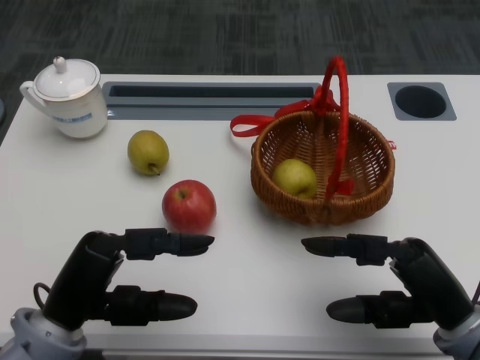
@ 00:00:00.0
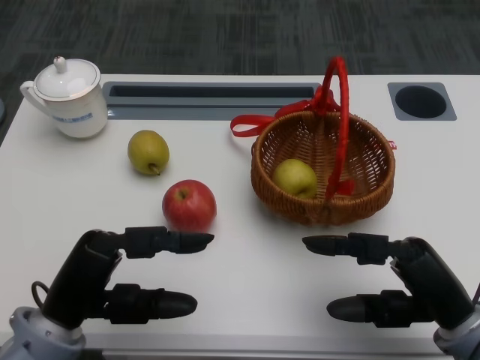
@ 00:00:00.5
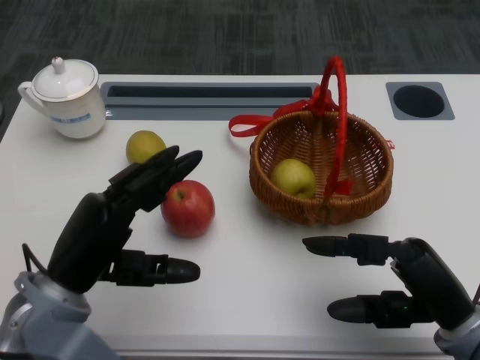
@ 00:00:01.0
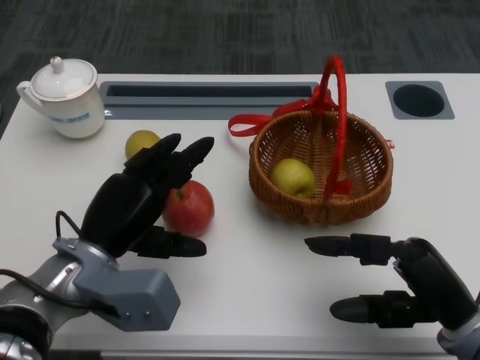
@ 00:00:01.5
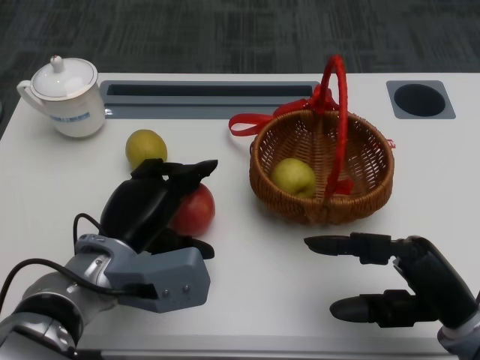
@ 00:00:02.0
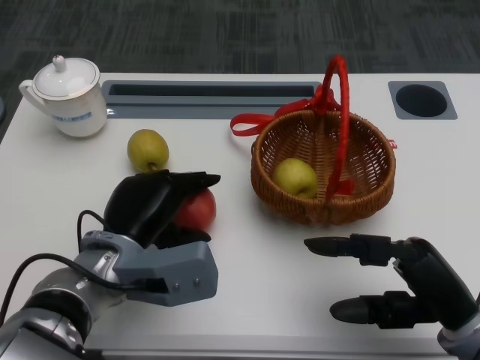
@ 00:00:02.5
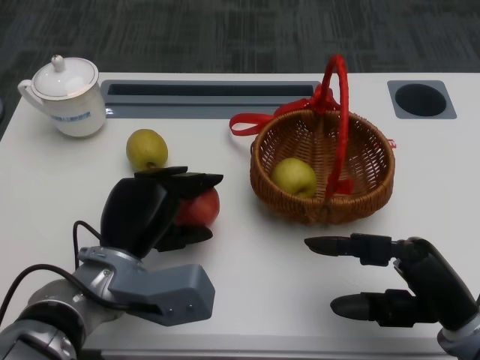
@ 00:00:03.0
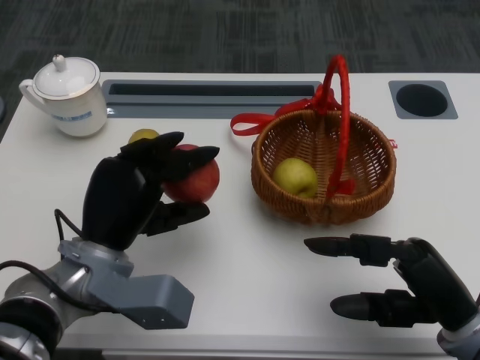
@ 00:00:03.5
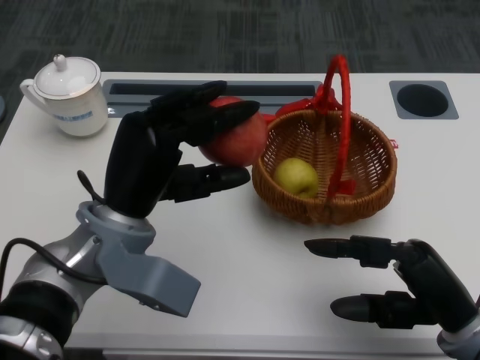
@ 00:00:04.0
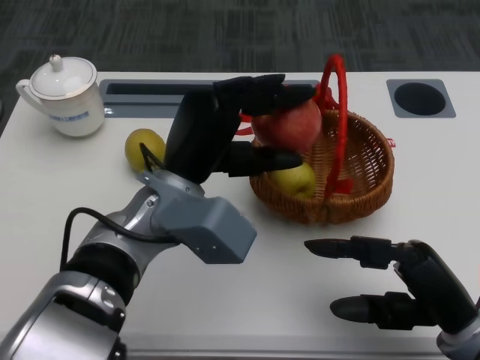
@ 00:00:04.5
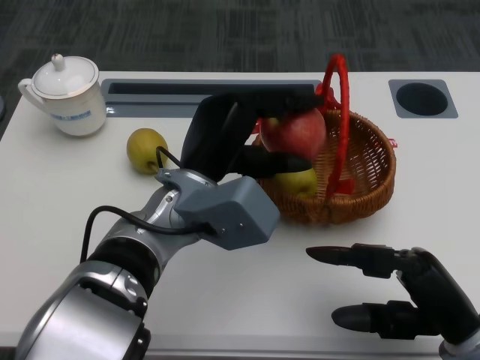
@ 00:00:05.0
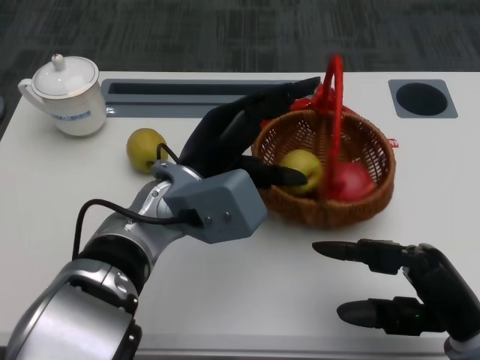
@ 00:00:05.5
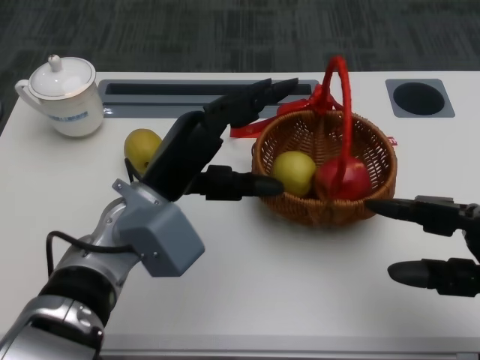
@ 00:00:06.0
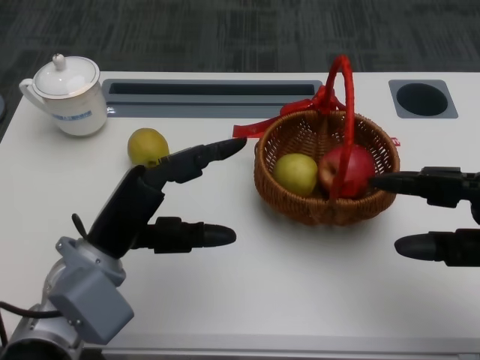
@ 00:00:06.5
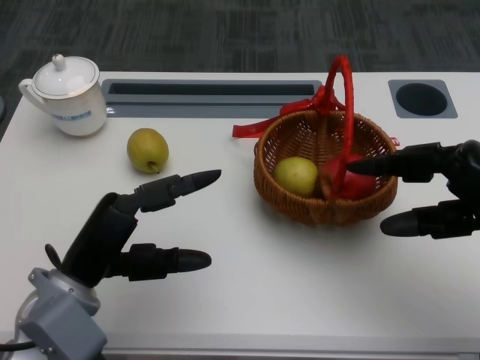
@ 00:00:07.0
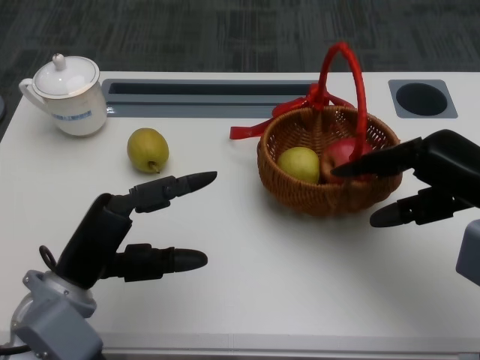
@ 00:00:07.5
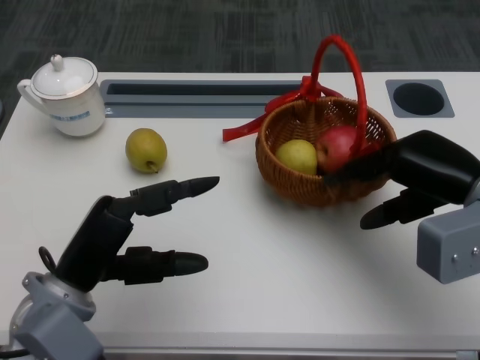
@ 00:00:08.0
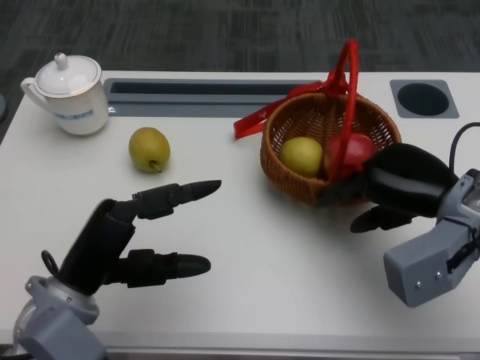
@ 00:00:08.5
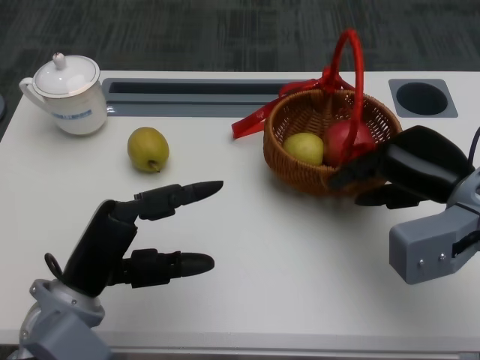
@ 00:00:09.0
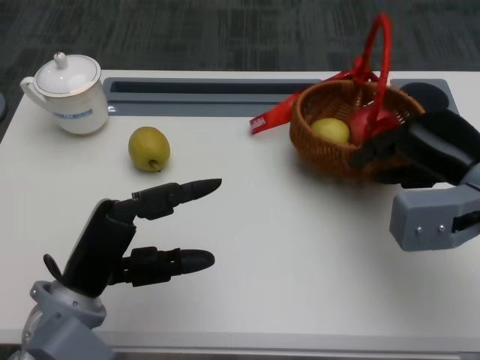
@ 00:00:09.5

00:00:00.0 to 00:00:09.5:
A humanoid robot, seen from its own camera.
Step, 00:00:00.5 to 00:00:02.0: Grasp the apple with the left gripper.
Step, 00:00:02.5 to 00:00:04.0: Place the apple into the basket with the left gripper.
Step, 00:00:05.0 to 00:00:07.0: Grasp the basket with the right gripper.
Step, 00:00:07.5 to 00:00:08.5: Move the basket to the front of the table with the right gripper.
00:00:02.0 to 00:00:04.0: The left hand heads upward, covering roughly 5 cm.
00:00:04.0 to 00:00:05.5: The left hand goes about 5 cm to the right.
00:00:05.5 to 00:00:07.5: The left hand is displaced to the left and backward by about 15 cm; the right hand goes approximately 15 cm forward and upward.

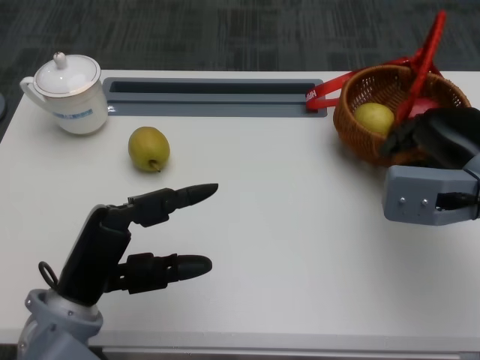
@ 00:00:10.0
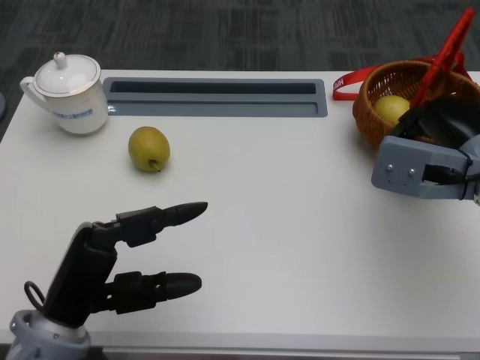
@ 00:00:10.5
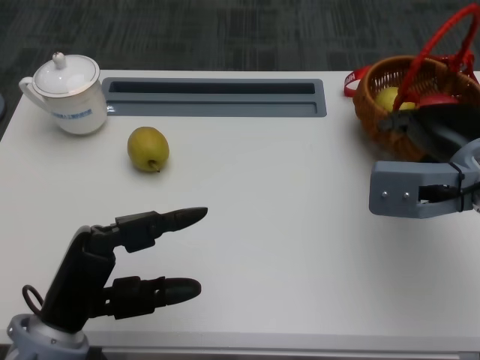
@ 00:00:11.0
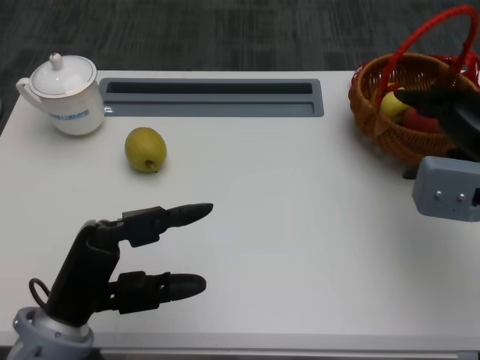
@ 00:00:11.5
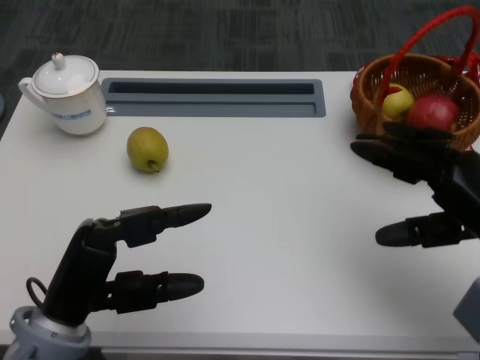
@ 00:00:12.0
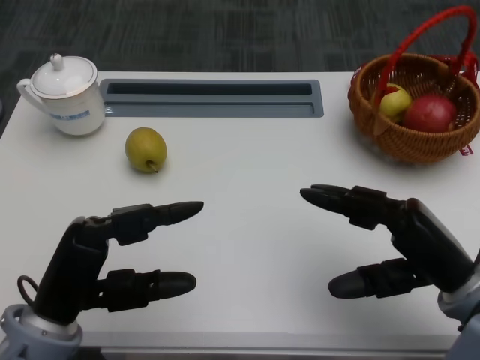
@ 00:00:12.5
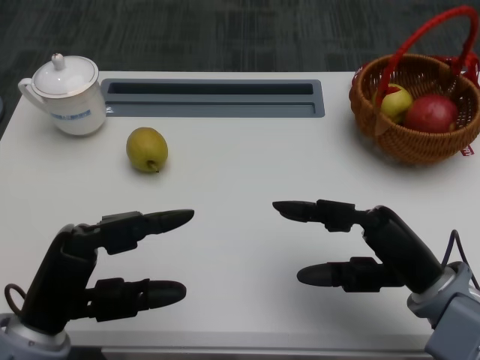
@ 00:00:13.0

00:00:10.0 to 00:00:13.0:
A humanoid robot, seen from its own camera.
00:00:10.0 to 00:00:11.5: The hands stay close to where they were, moving slightly.
00:00:11.5 to 00:00:13.0: The right hand moves backward, downward and to the left, about 15 cm.

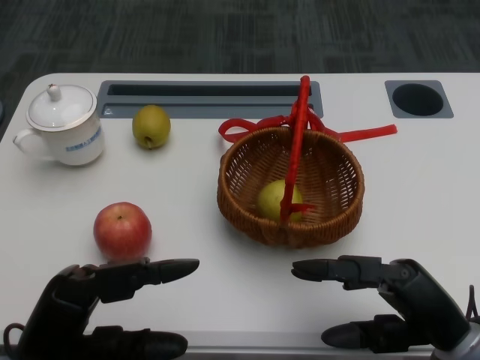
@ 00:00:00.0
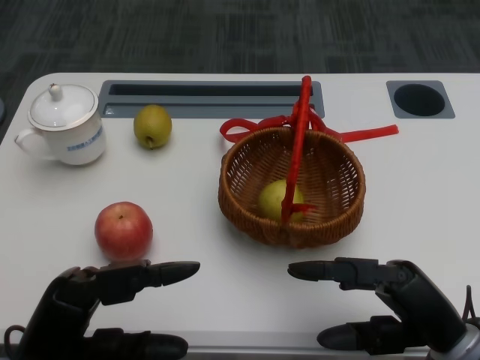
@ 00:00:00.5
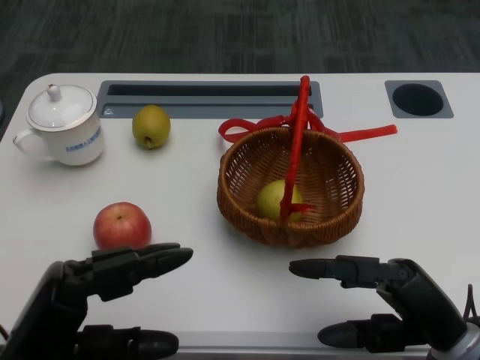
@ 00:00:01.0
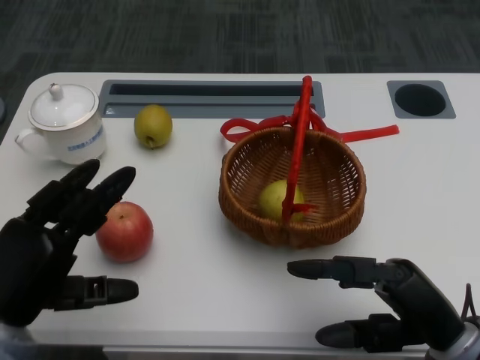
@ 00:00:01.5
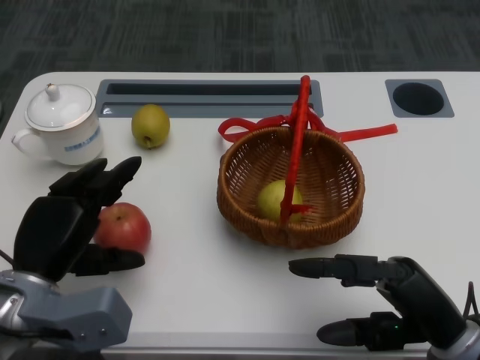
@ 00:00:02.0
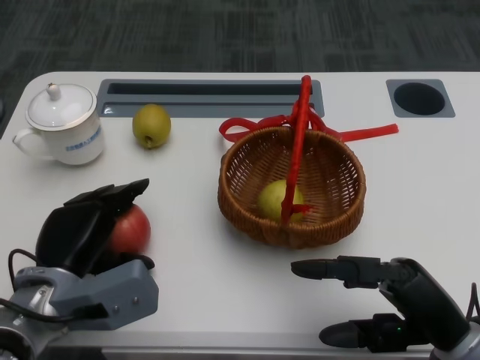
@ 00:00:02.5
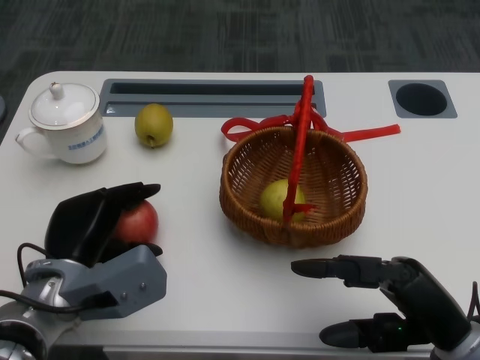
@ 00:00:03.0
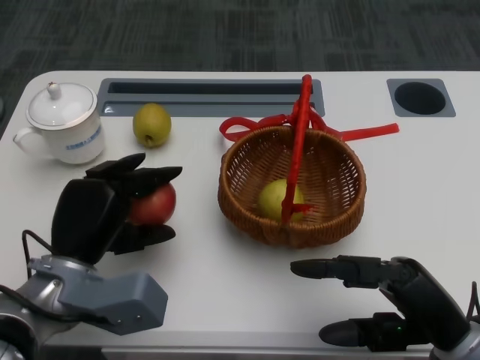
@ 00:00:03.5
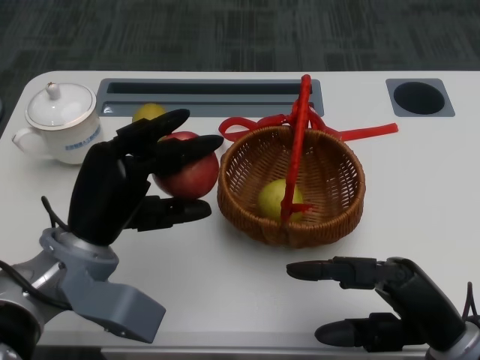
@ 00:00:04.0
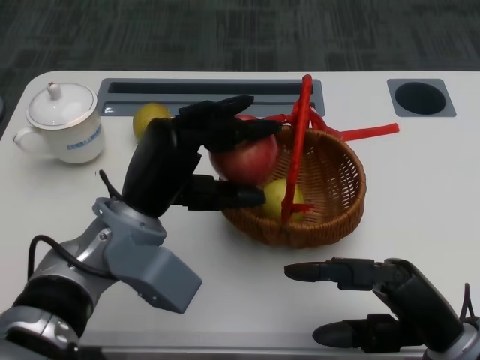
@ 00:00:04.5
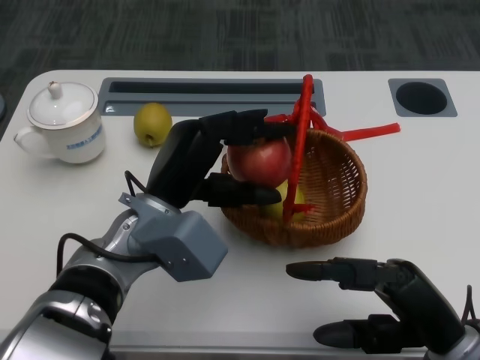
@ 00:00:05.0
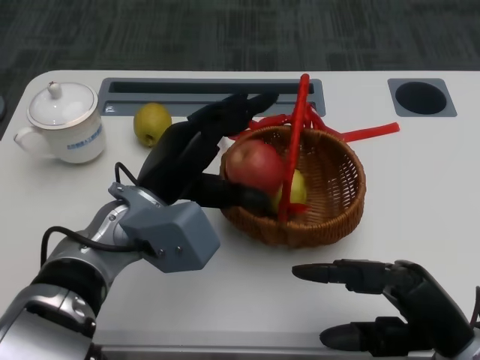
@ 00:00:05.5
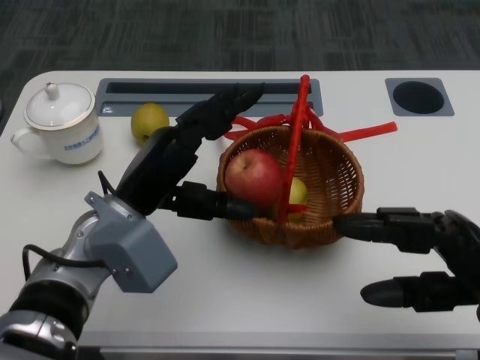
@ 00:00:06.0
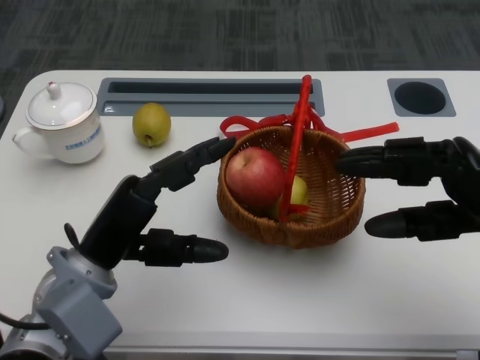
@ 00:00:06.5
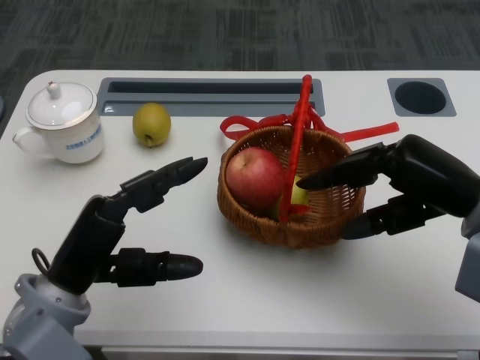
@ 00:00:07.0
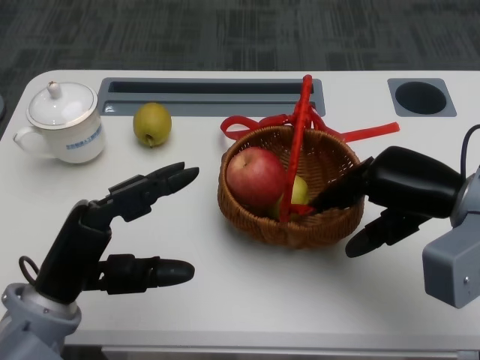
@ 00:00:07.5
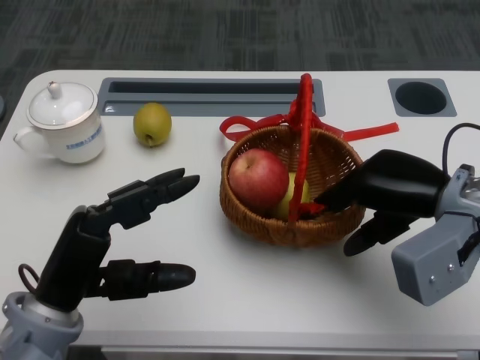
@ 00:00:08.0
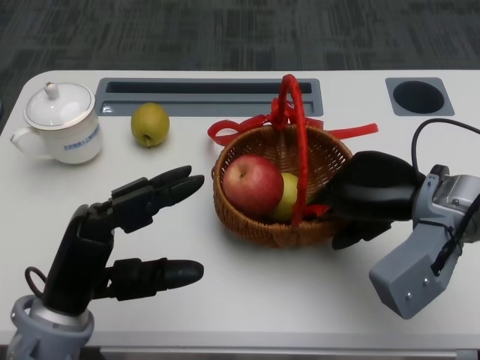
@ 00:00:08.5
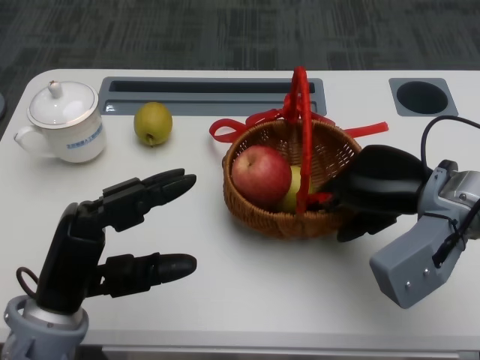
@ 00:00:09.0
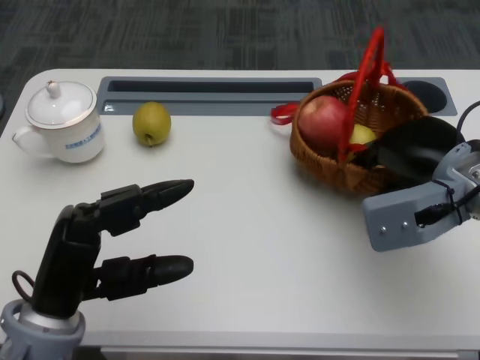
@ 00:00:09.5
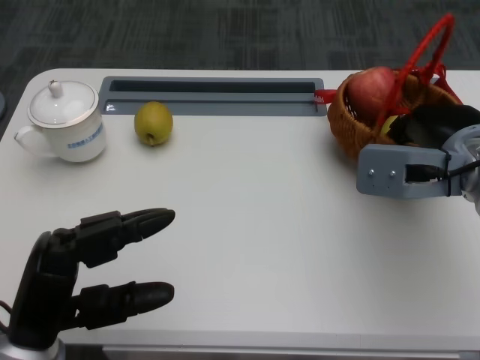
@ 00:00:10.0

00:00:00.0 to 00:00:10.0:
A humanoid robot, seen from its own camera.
Step, 00:00:01.0 to 00:00:02.0: Grasp the apple with the left gripper.
Step, 00:00:02.5 to 00:00:04.5: Place the apple into the basket with the left gripper.
Step, 00:00:05.0 to 00:00:06.5: Grasp the basket with the right gripper.
Step, 00:00:07.0 to 00:00:08.5: Move the basket to the front of the table with the right gripper.
00:00:02.0 to 00:00:04.0: The left hand travels to the right by roughly 5 cm.
00:00:04.0 to 00:00:06.0: The right hand shifts by roughly 5 cm, while the left hand ends up some 5 cm from where it was.
00:00:06.0 to 00:00:08.0: The left hand travels backward and to the left by some 10 cm. Meanwhile the right hand heads forward, covering approximately 10 cm.

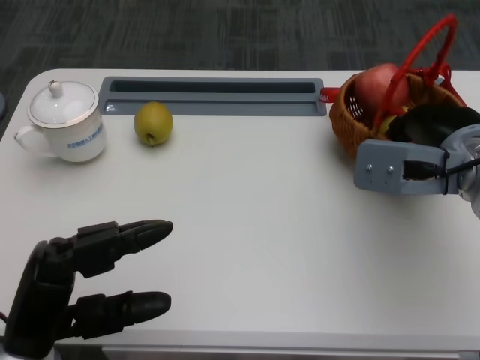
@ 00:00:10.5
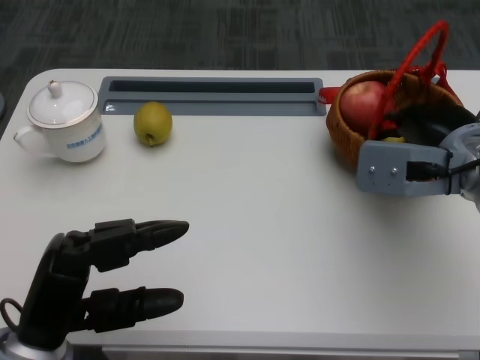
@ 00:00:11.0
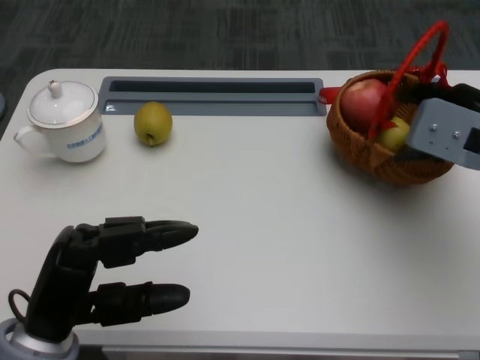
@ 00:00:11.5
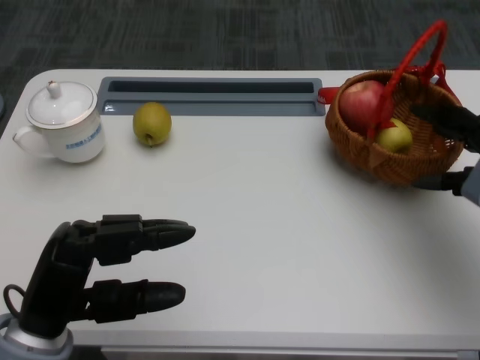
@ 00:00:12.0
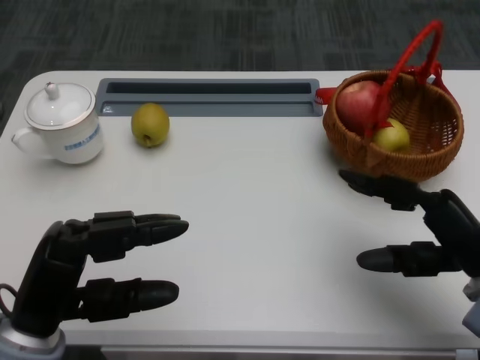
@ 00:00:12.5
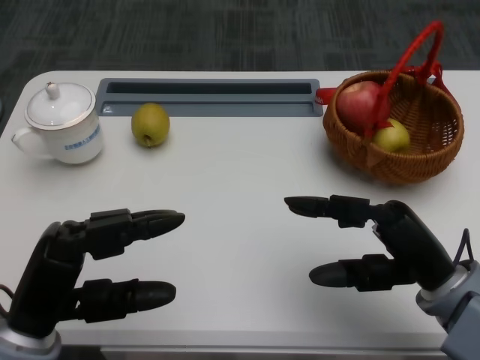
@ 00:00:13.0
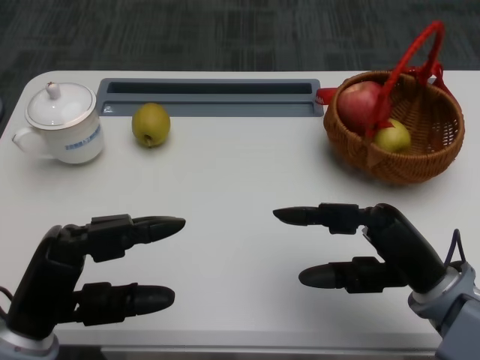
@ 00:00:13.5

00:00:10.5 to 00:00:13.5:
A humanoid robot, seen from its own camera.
00:00:10.5 to 00:00:12.0: The right hand shifts approximately 5 cm to the right.
00:00:12.0 to 00:00:13.5: The right hand is displaced to the left, backward and downward by roughly 15 cm.
